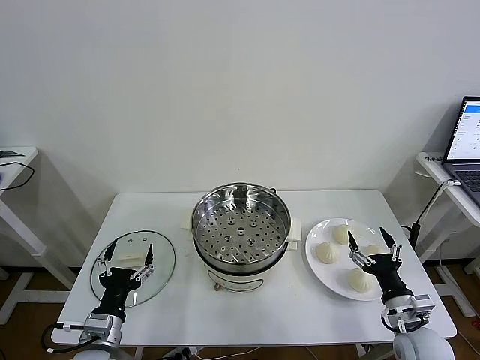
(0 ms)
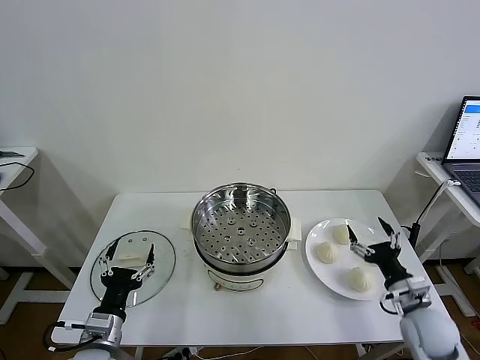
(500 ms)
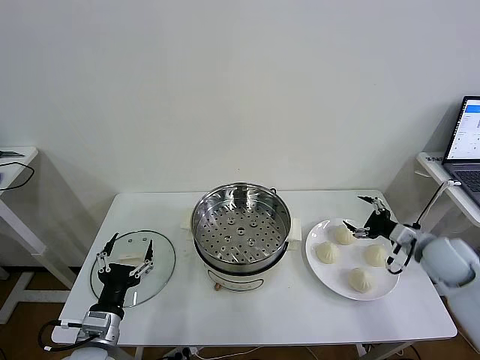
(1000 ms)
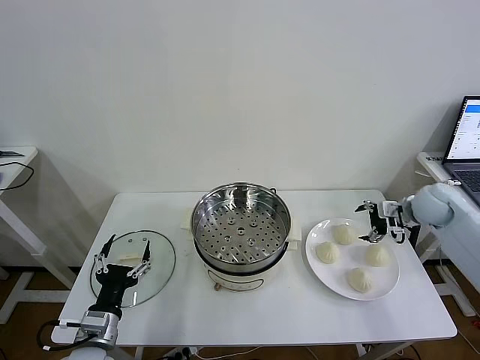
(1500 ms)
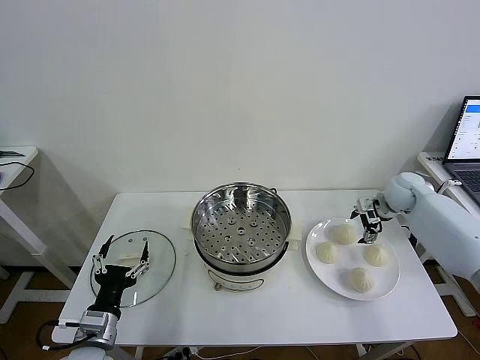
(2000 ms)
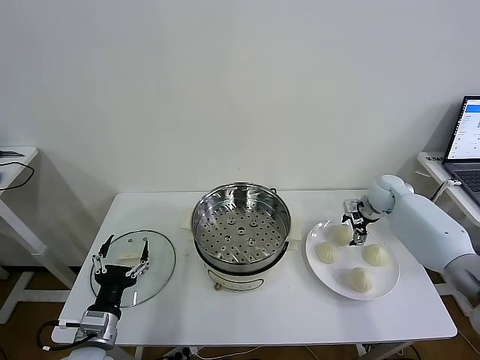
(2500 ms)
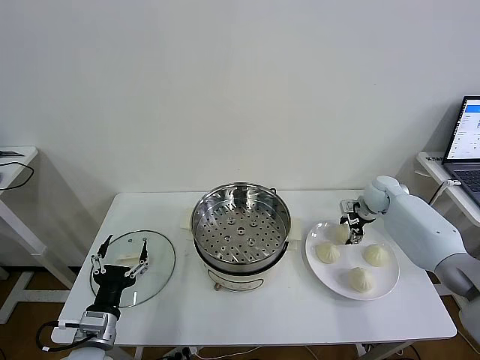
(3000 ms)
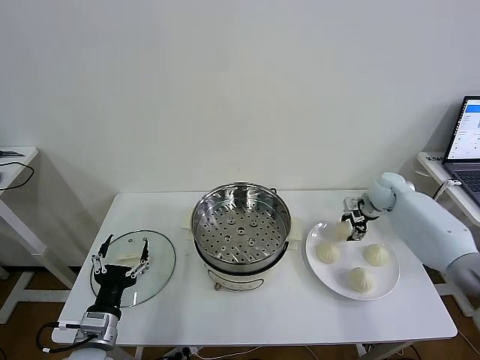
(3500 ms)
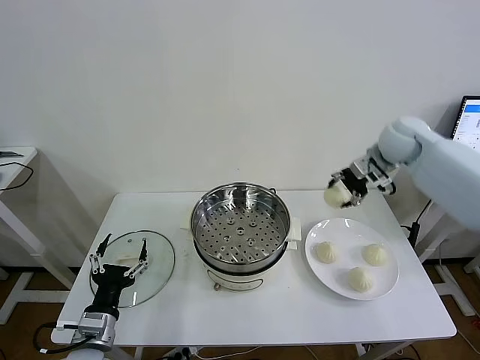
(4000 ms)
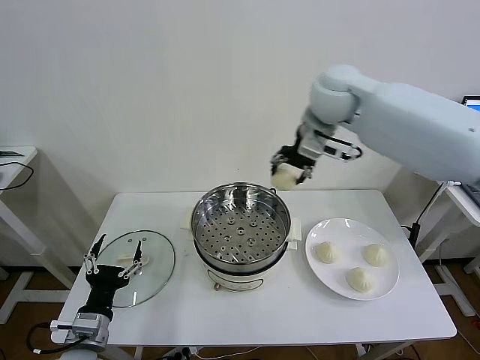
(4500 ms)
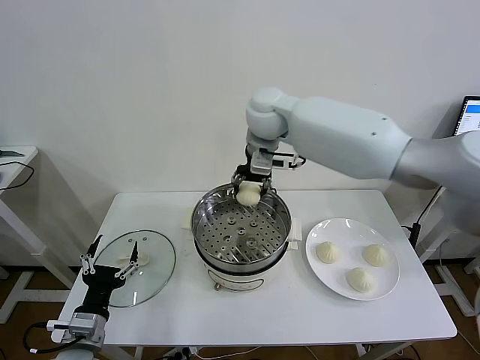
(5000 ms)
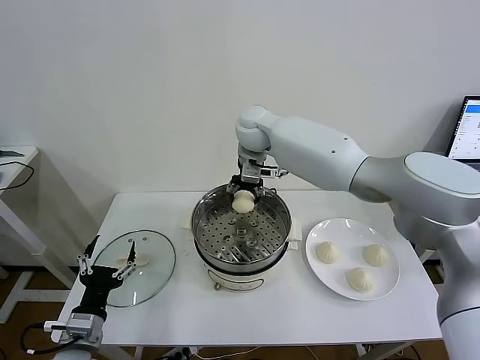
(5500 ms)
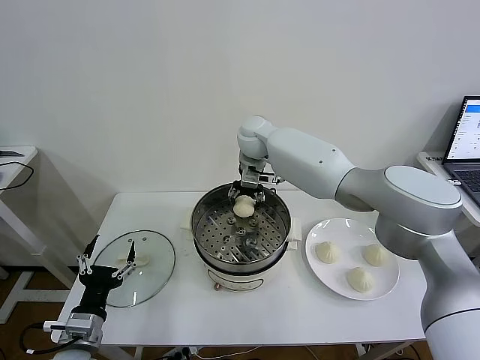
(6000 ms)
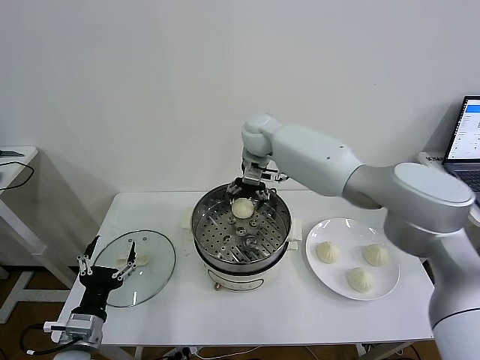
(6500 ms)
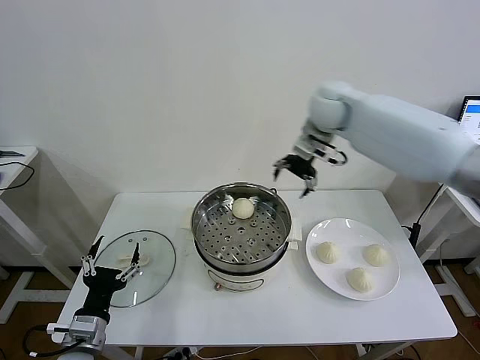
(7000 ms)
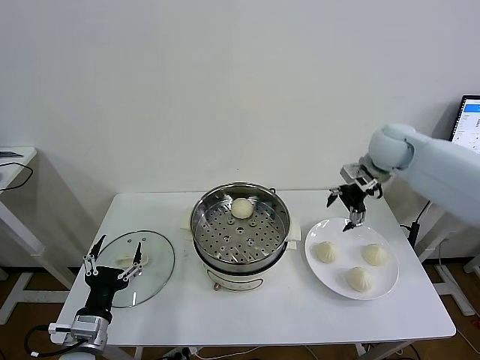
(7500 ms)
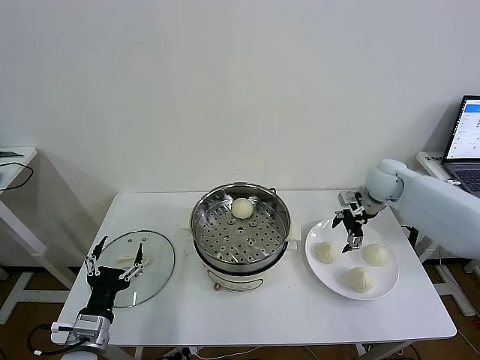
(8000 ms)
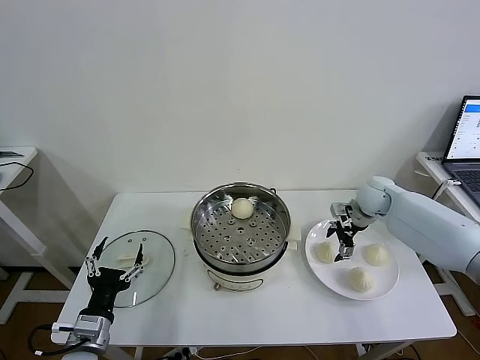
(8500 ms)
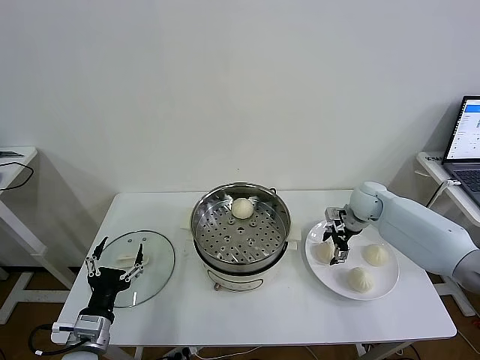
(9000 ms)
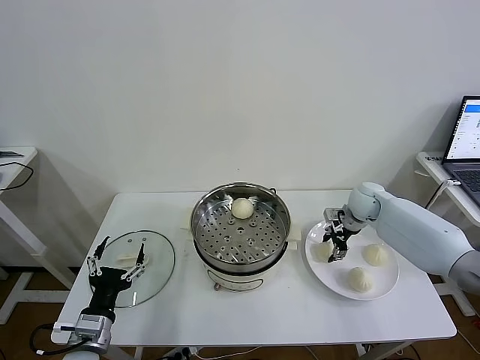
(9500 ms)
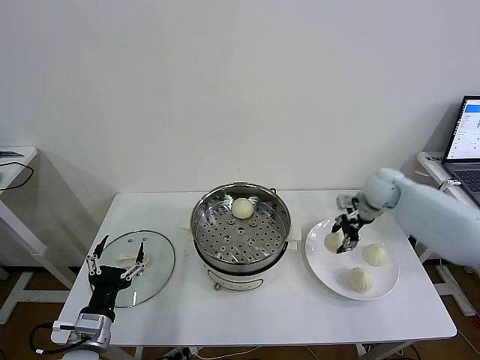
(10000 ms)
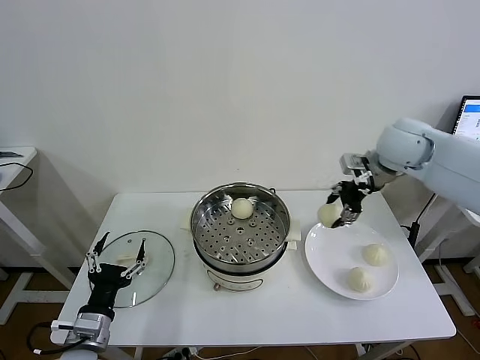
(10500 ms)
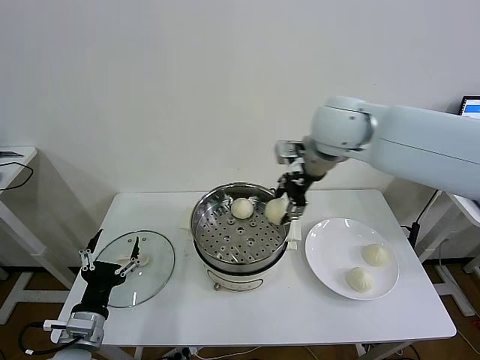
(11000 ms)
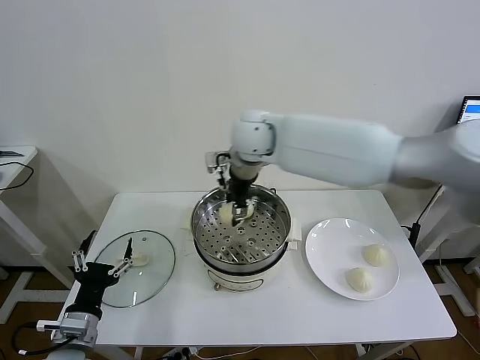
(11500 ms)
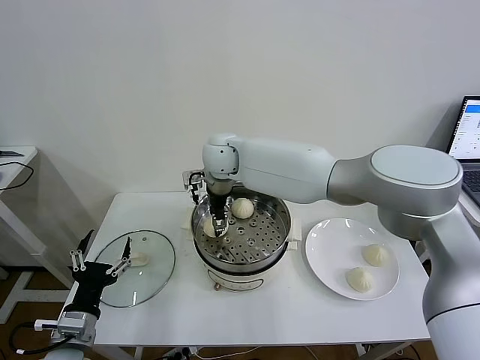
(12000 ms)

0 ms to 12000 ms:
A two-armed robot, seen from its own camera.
Task of the whole recording: take steamed baozi put them in steamer then cover it.
Step, 0 ms to 3000 ms: Grasp the baozi in the plate with right gripper.
Step, 3500 ms to 6000 ms: Place the baozi on the steamer with right gripper.
Step, 6500 ms to 9500 ms: Grasp the baozi in the plate with right gripper.
2000 ms to 4000 ms: The right gripper heads upward and to the left, covering roughly 20 cm, and closes up.
4000 ms to 6000 ms: The right gripper travels to the left by about 30 cm.
6000 ms to 8000 ms: The right gripper goes some 30 cm to the right, and opens its fingers.
8000 ms to 10000 ms: The right gripper moves roughly 5 cm downward and comes back, and closes up.
10000 ms to 12000 ms: The right gripper goes roughly 40 cm to the left.

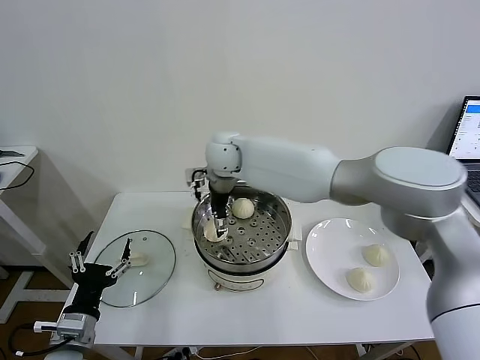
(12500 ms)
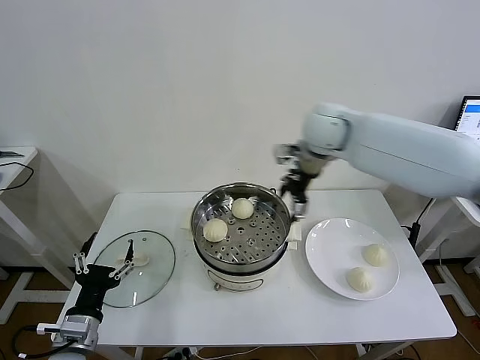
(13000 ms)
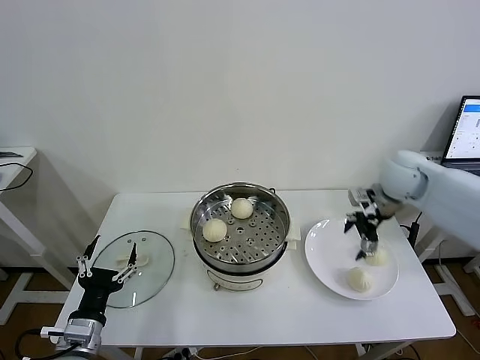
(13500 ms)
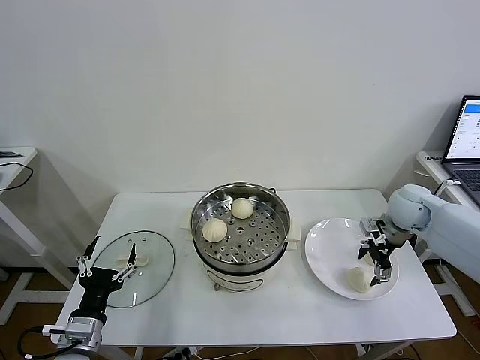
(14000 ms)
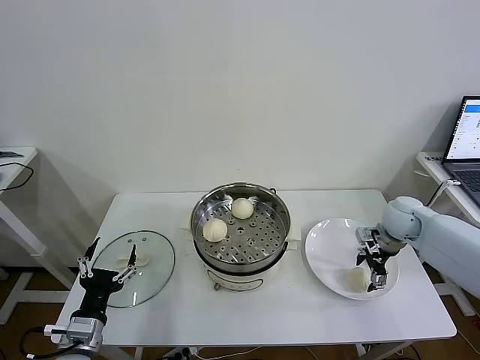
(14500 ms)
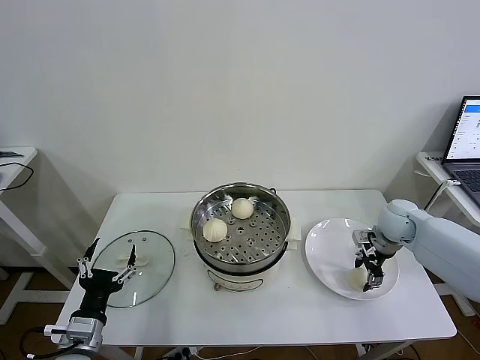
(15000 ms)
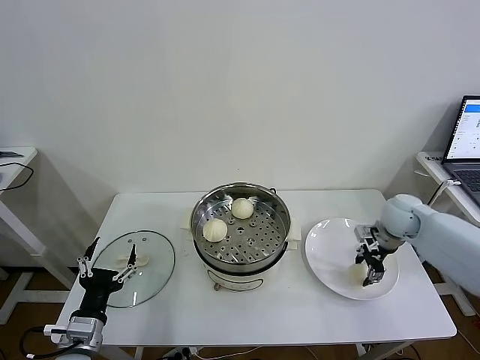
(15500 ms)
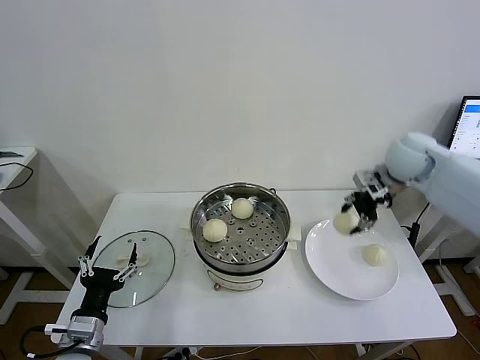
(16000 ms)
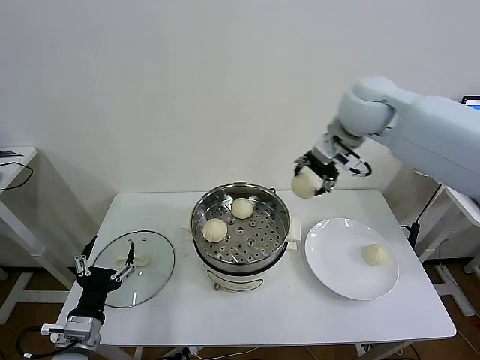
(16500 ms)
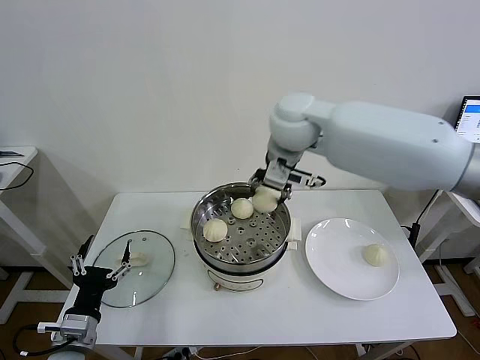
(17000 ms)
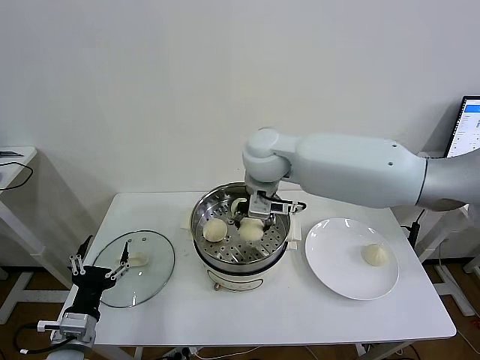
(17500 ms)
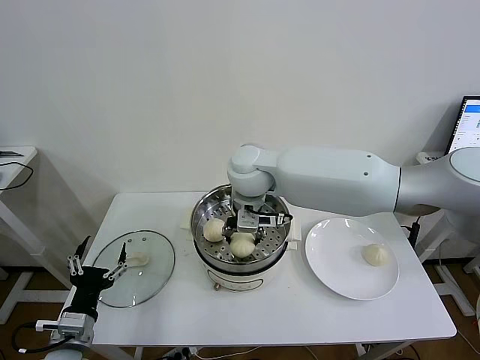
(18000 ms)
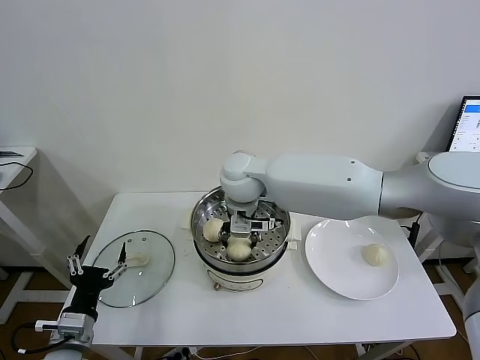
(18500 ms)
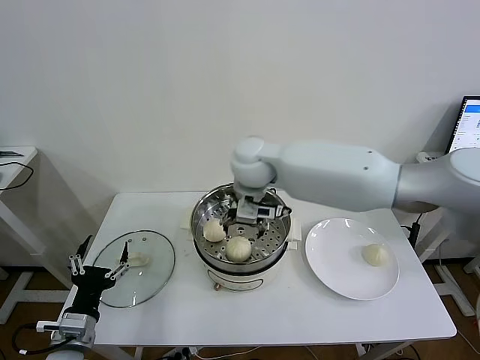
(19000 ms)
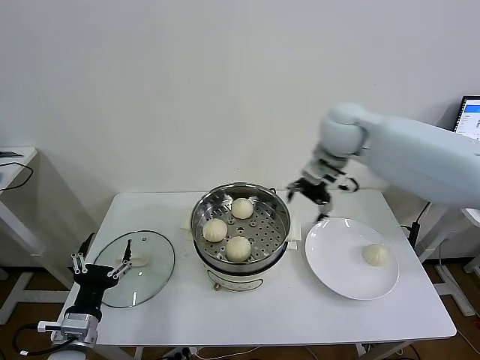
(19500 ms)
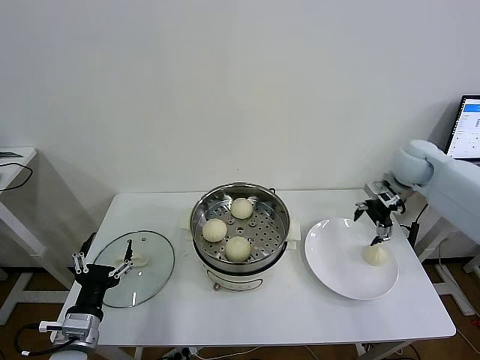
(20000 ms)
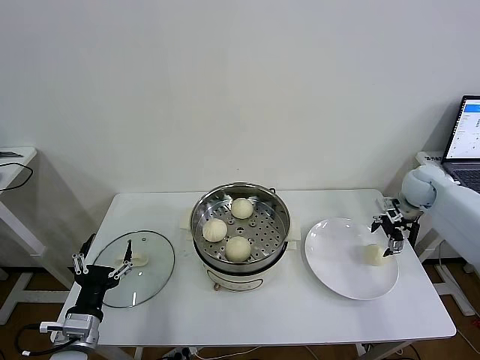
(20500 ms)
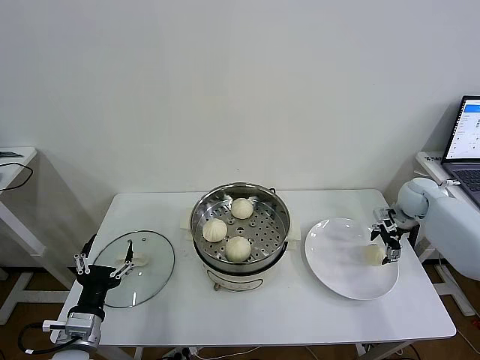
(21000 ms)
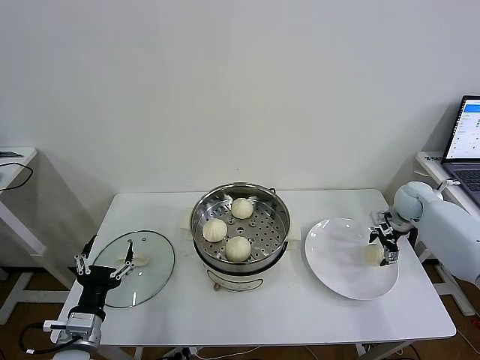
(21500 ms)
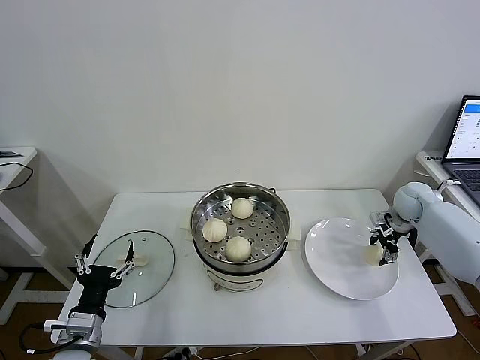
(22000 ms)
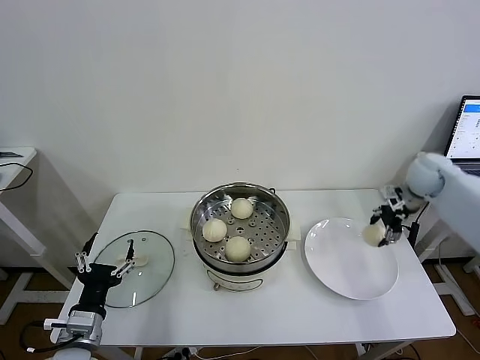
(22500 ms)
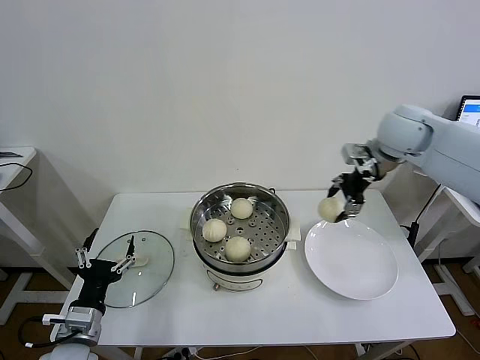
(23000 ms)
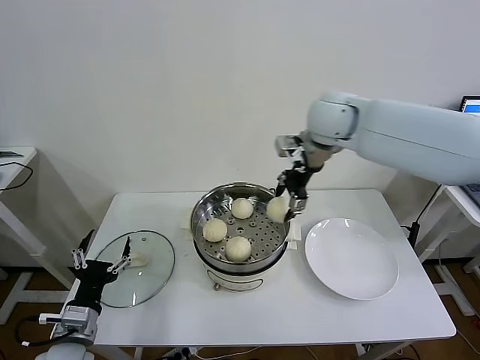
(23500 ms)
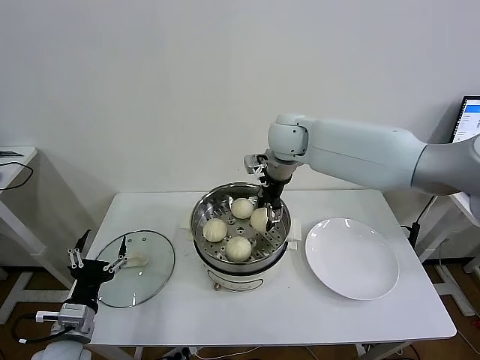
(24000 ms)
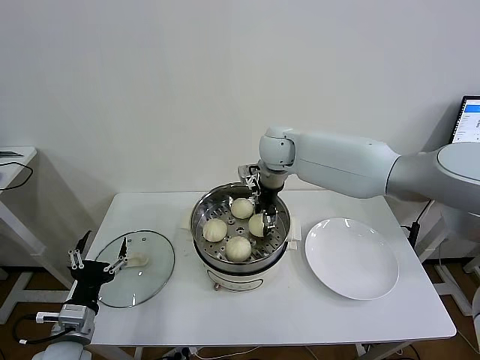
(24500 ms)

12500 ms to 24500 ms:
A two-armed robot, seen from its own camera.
Task of the whole recording: take steamed baozi put them in steamer then cover it.
Step, 12500 ms to 15000 ms: Grasp the baozi in the plate with right gripper.
Step, 15500 ms to 18500 ms: Place the baozi on the steamer with right gripper.
Step, 19000 ms to 21500 ms: Grasp the baozi in the plate with right gripper.
12500 ms to 14500 ms: The right gripper is displaced to the right by roughly 40 cm.
14500 ms to 16500 ms: The right gripper moves upward and to the left, some 35 cm, and closes.
16500 ms to 18500 ms: The right gripper moves to the left and downward, some 25 cm.
18500 ms to 20500 ms: The right gripper heads to the right, covering about 50 cm, and opens up.
20500 ms to 22500 ms: The right gripper closes.
22500 ms to 24500 ms: The right gripper shifts approximately 35 cm to the left.

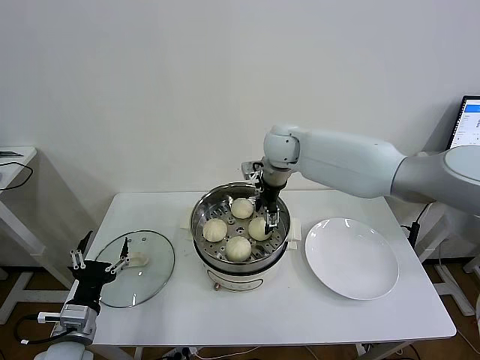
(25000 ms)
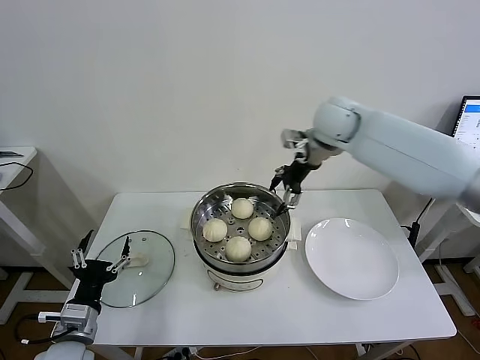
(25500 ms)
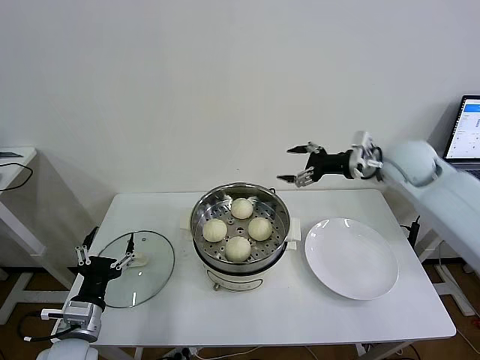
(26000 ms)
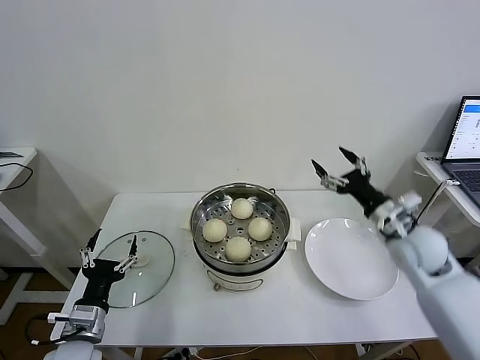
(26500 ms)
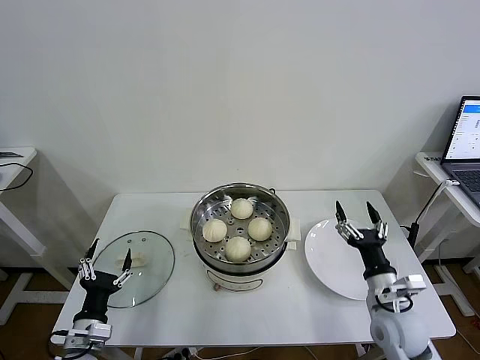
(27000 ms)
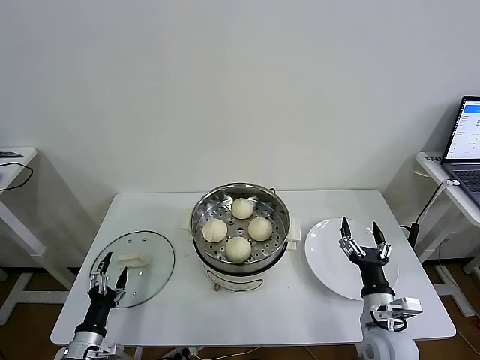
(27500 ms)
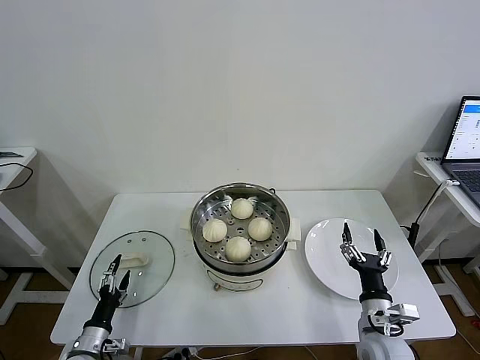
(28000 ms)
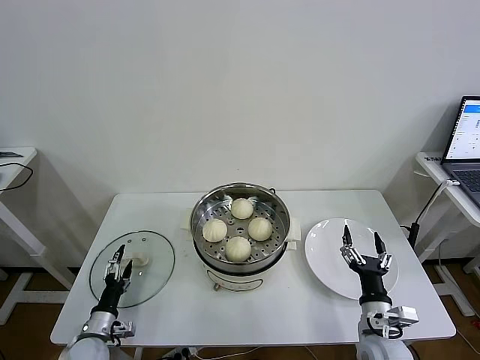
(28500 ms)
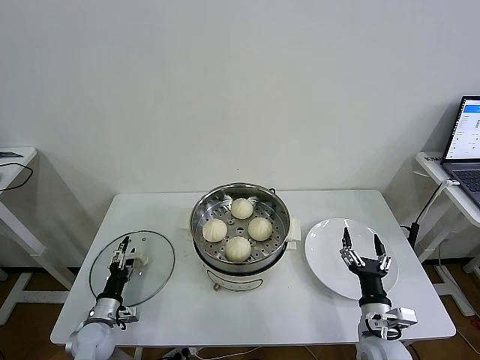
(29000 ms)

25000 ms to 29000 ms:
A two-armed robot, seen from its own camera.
Task of the whole recording: take steamed baozi put them in steamer then cover it.
25000 ms to 27000 ms: The right gripper is displaced backward, to the right and downward by some 50 cm. Meanwhile the left gripper moves downward, some 5 cm.
27000 ms to 29000 ms: The right gripper moves downward, some 5 cm; the left gripper shifts approximately 15 cm downward and forward.
